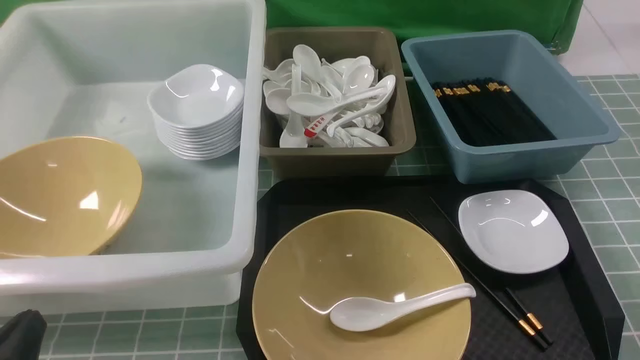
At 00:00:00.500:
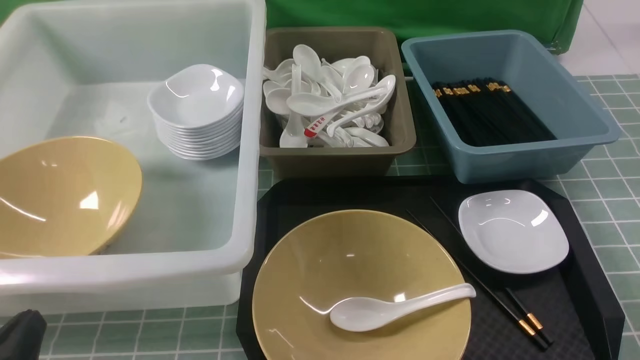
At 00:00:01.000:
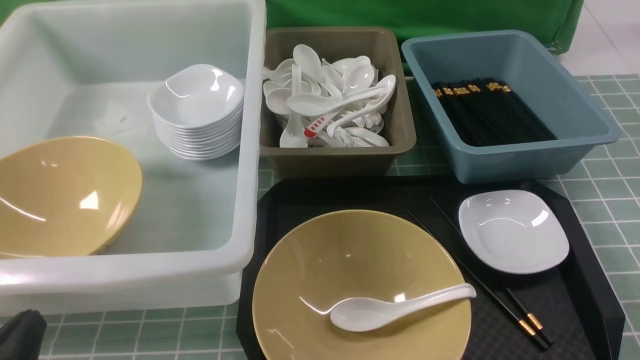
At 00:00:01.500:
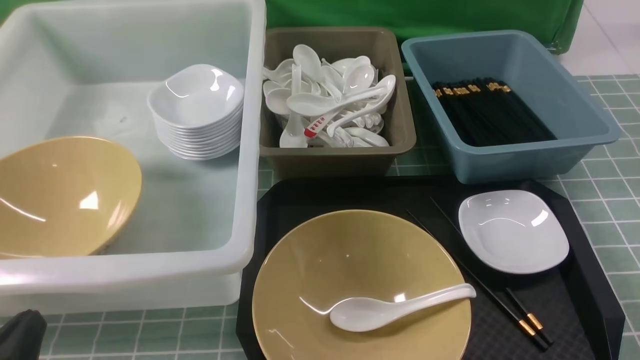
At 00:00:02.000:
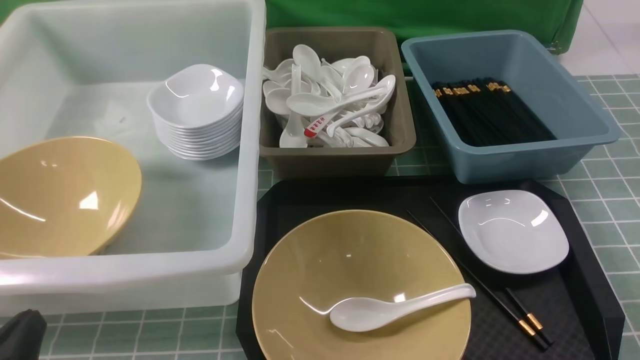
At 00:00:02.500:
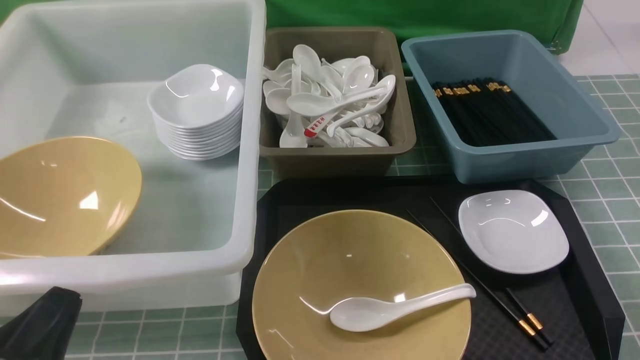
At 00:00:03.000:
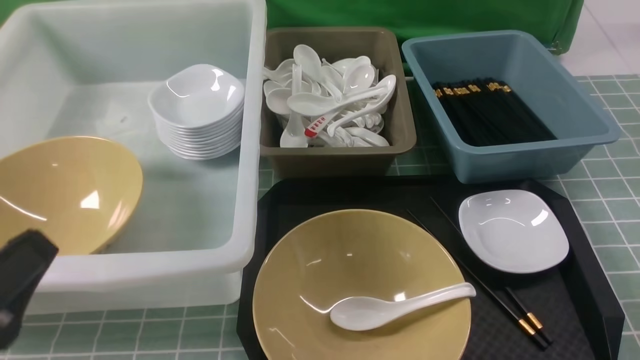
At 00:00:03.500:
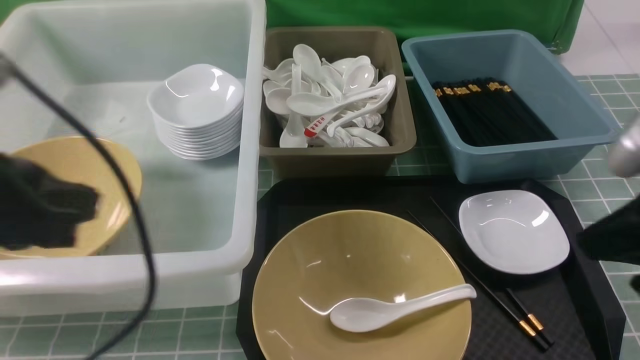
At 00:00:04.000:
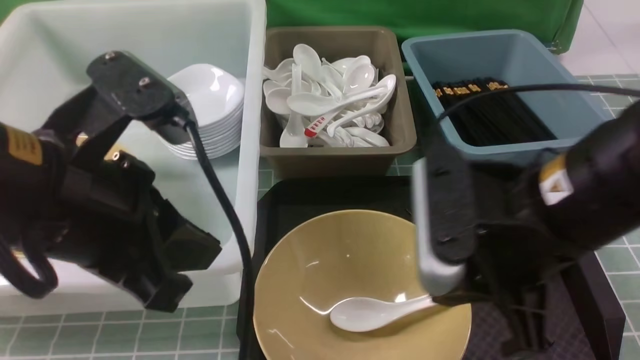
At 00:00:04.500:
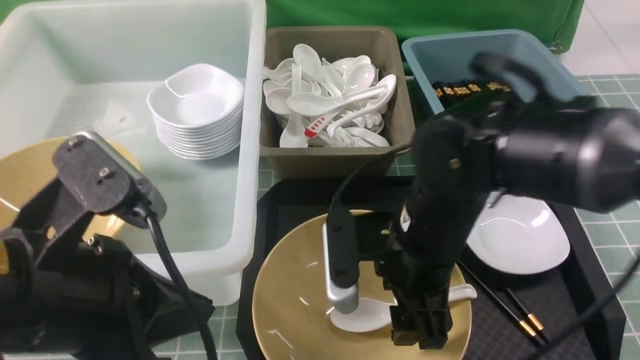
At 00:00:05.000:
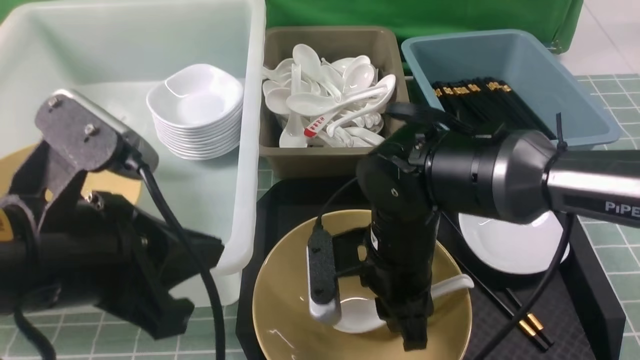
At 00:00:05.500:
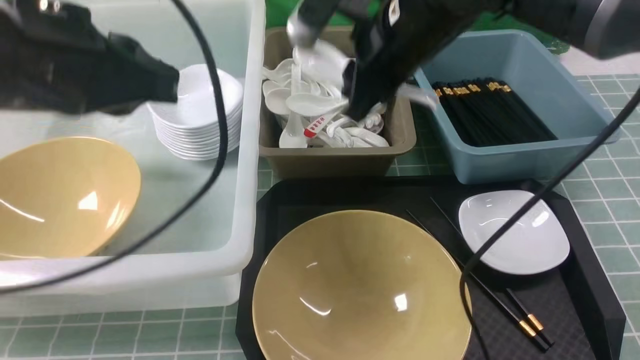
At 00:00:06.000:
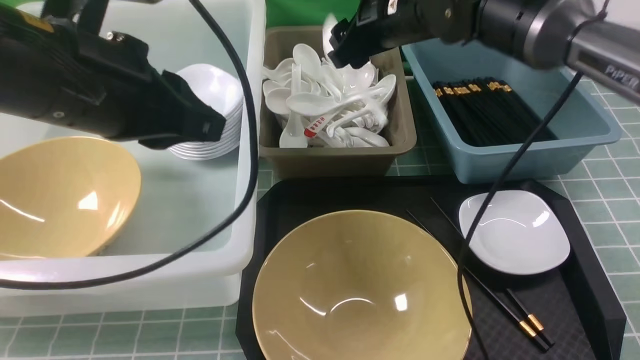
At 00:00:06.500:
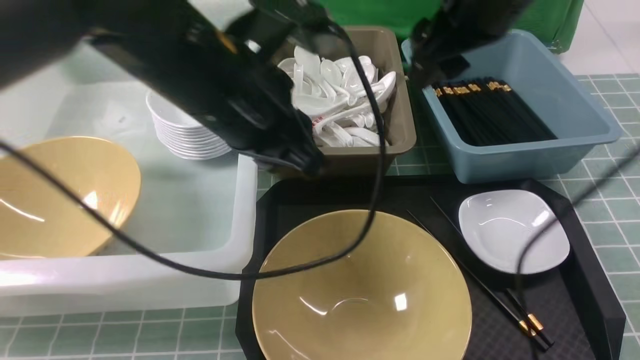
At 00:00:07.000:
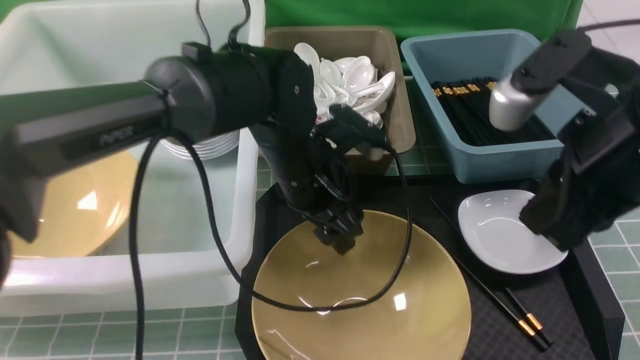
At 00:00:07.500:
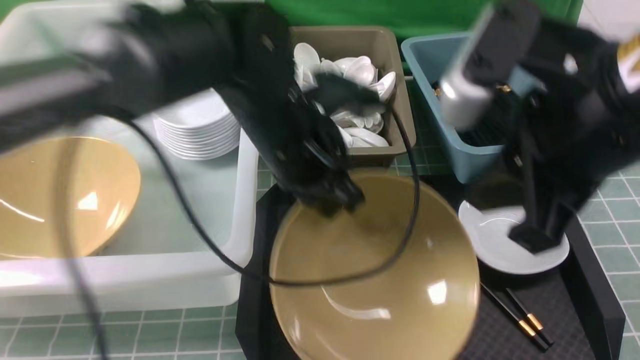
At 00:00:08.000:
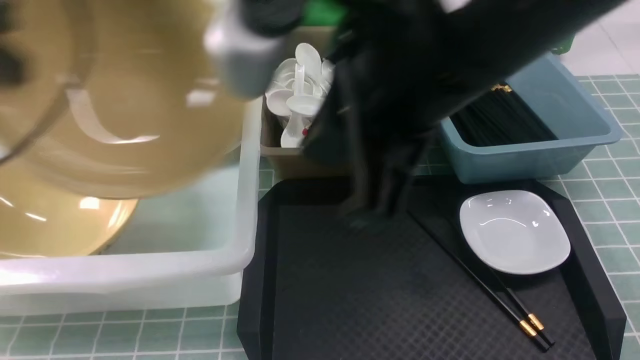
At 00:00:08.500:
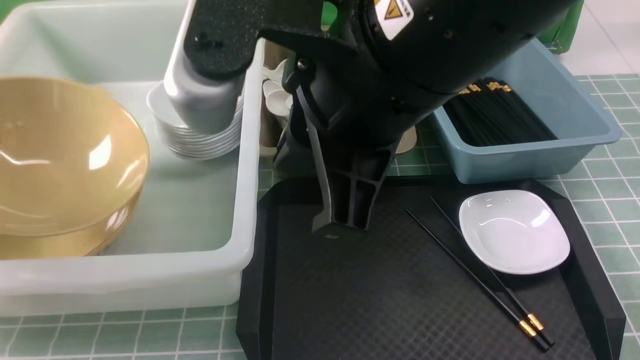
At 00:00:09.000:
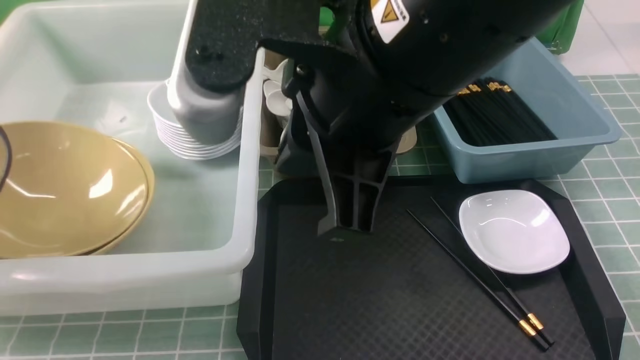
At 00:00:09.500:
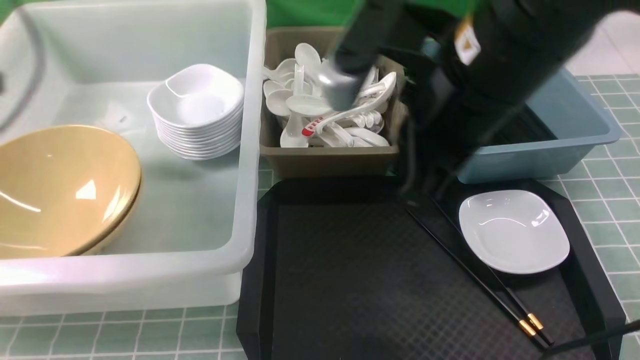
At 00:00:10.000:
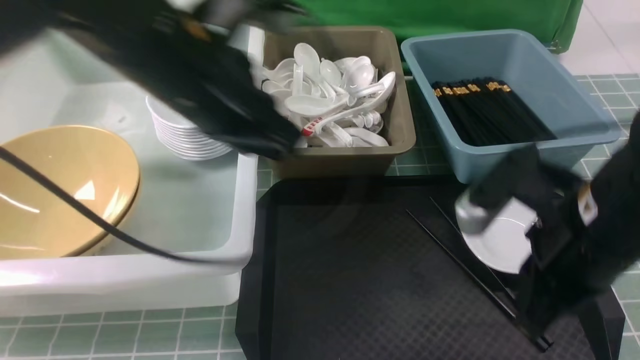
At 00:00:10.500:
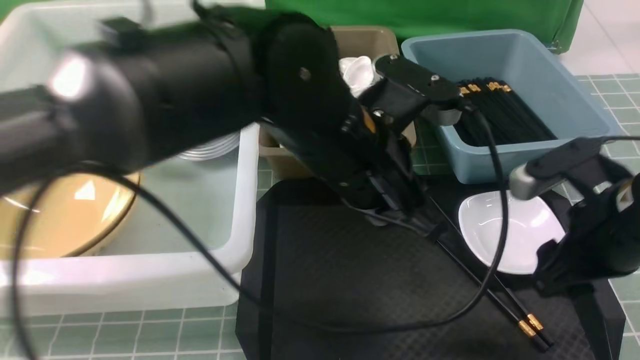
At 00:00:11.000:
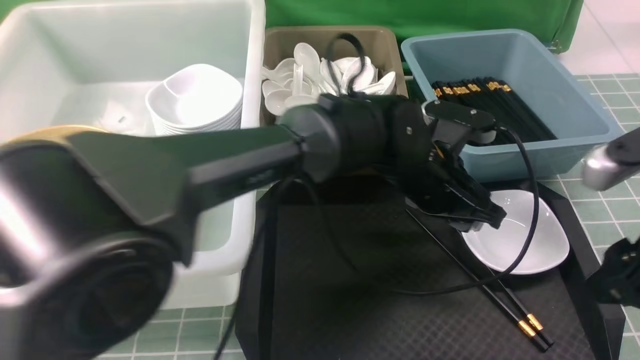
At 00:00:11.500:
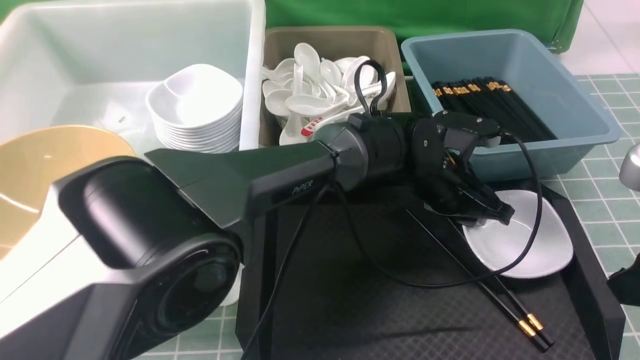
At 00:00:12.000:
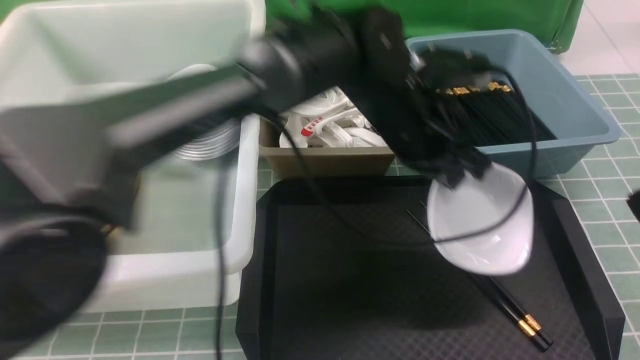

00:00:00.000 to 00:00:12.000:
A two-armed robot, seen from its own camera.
Task of the whole recording: on blue table put chopsticks spoon bowls plates into blue grey white boxes.
Step, 00:00:00.000 to 00:00:05.000: use the right arm to grab the soup spoon in the middle.
Step, 00:00:05.500 to 00:00:06.000: use the right arm to put the soup spoon into the small storage box in the middle.
Step, 00:00:06.500 to 00:00:07.500: use the left arm to grab the yellow noodle bowl on the left.
Step, 00:00:08.000 to 00:00:09.500: use the left arm to put the noodle bowl into the large storage box on the left.
Step, 00:00:10.000 to 00:00:12.000: use the left arm to grab the plate.
00:00:02.000 to 00:00:04.000: The right gripper moves to the left, forward and upward, roughly 25 cm, and closes, then reopens. The left gripper is displaced upward, forward and to the right by roughly 20 cm.
00:00:04.000 to 00:00:06.000: The left gripper travels forward by about 10 cm, while the right gripper is displaced forward by approximately 25 cm, and opens its fingers.
00:00:06.000 to 00:00:08.000: The right gripper moves backward and upward, roughly 25 cm, and closes its fingers. The left gripper moves to the left, roughly 15 cm, and opens, then closes once more.
00:00:08.000 to 00:00:10.000: The left gripper is displaced to the right by about 20 cm, and opens, then closes again; the right gripper is displaced downward and to the right by about 20 cm.
00:00:10.000 to 00:00:12.000: The right gripper goes roughly 10 cm upward and to the right, and opens, then closes once more. Meanwhile the left gripper is displaced to the right, forward and downward by about 15 cm, and opens and closes again.

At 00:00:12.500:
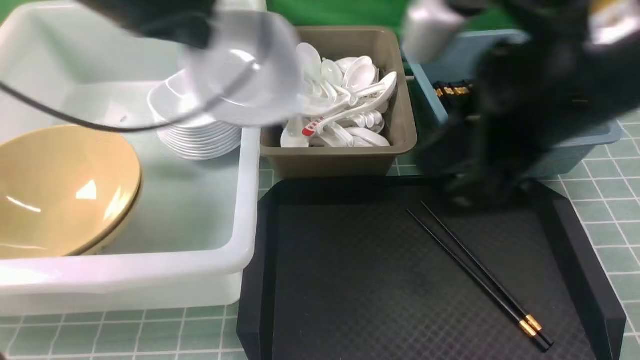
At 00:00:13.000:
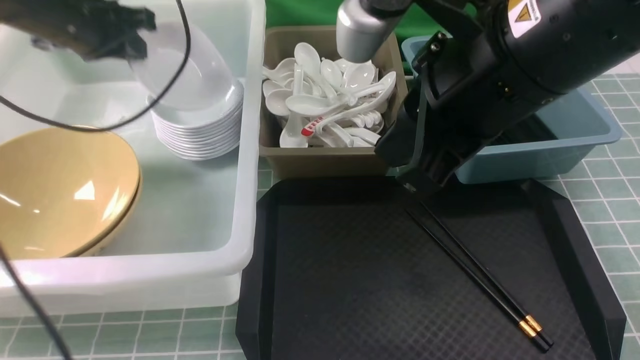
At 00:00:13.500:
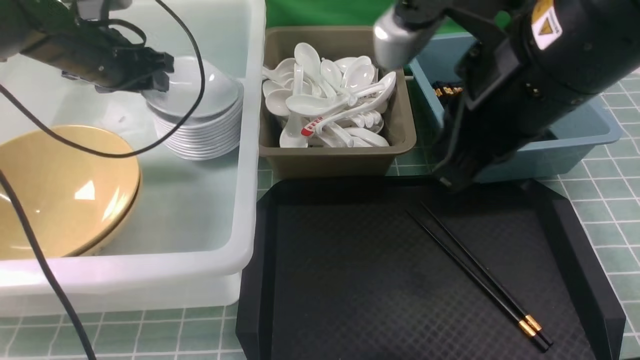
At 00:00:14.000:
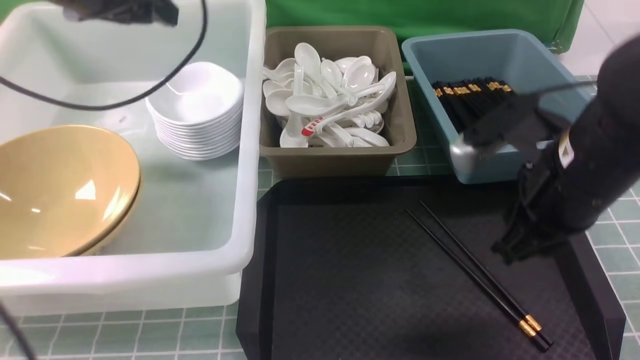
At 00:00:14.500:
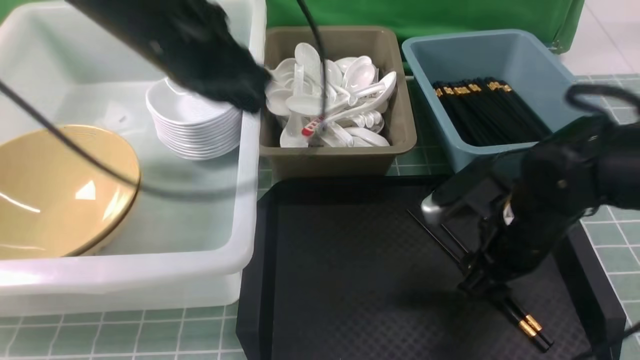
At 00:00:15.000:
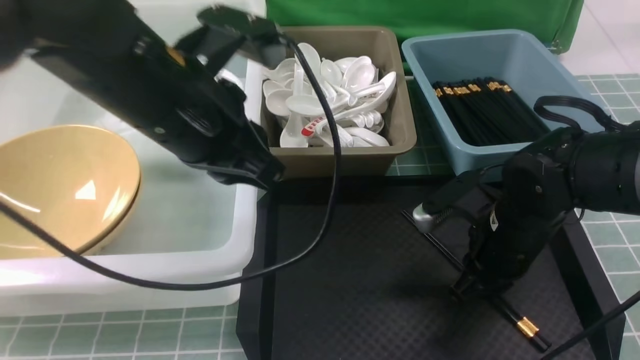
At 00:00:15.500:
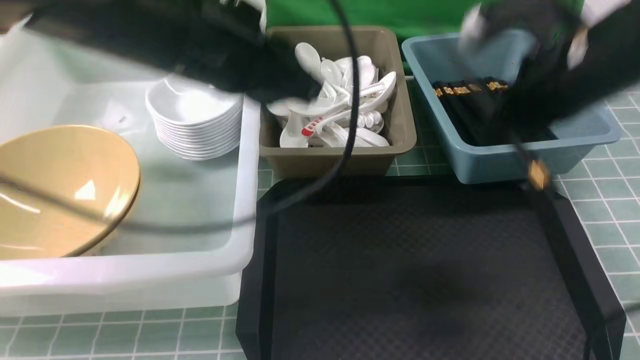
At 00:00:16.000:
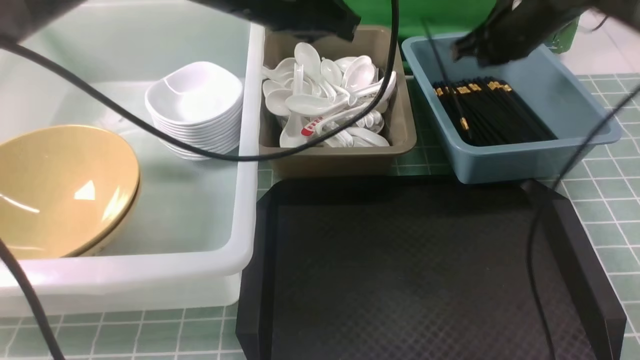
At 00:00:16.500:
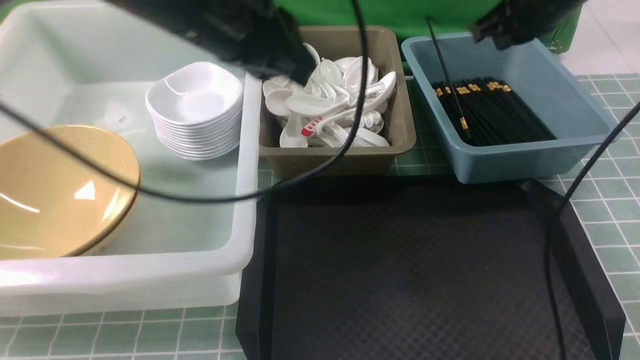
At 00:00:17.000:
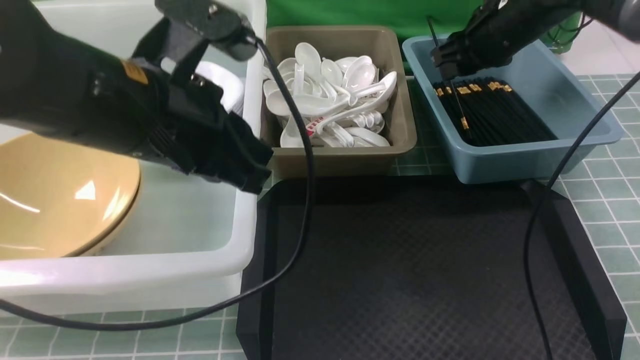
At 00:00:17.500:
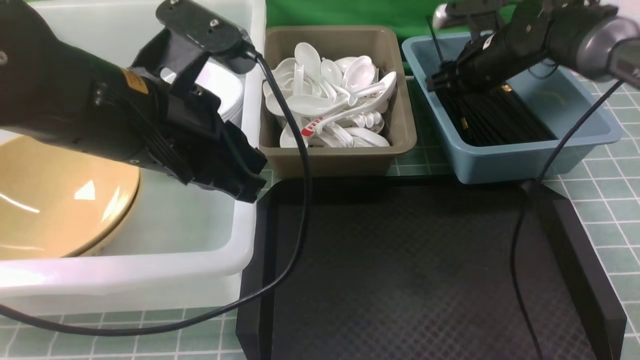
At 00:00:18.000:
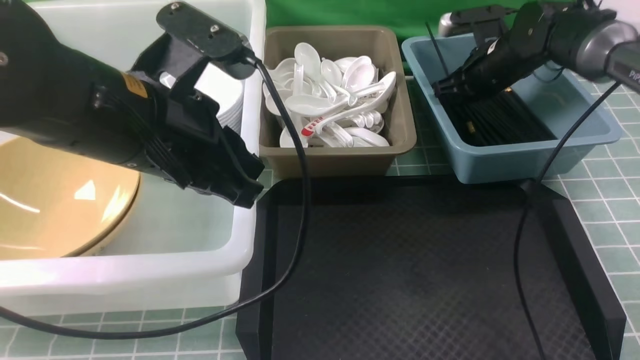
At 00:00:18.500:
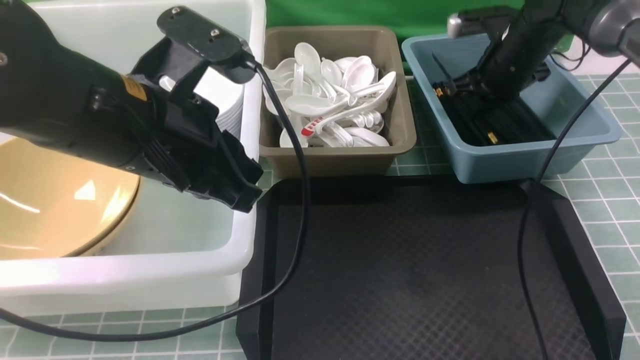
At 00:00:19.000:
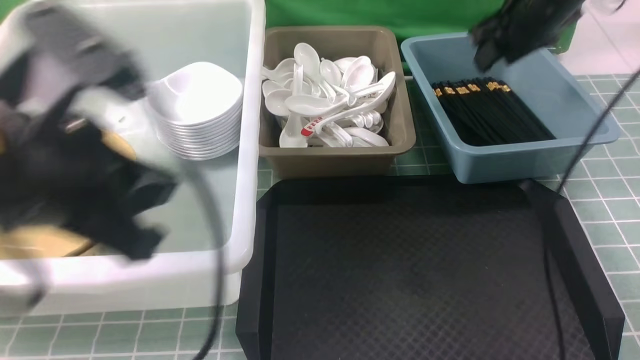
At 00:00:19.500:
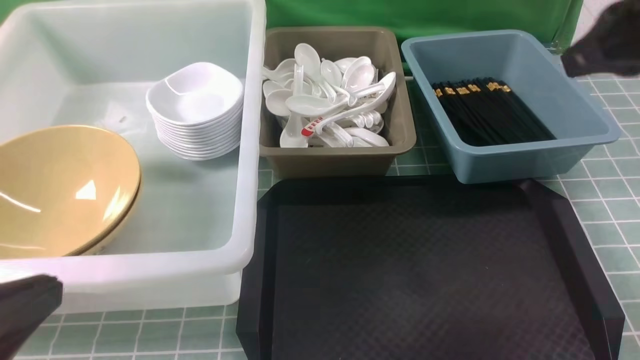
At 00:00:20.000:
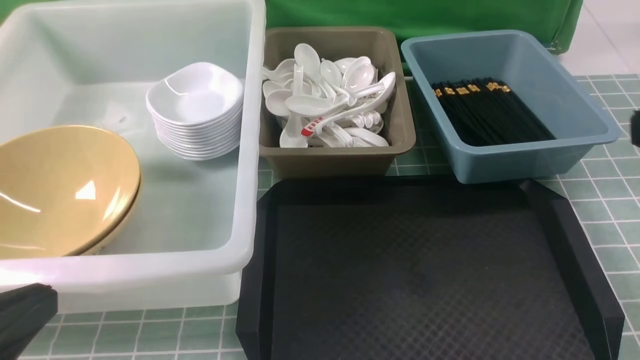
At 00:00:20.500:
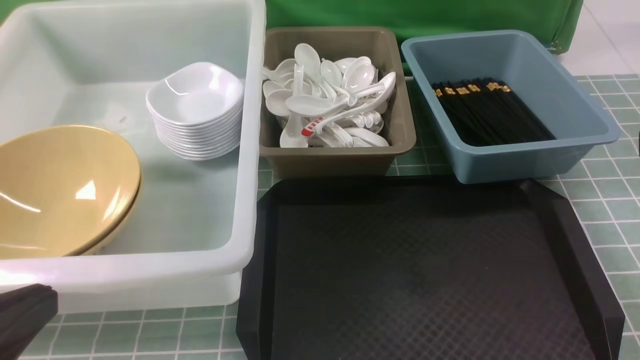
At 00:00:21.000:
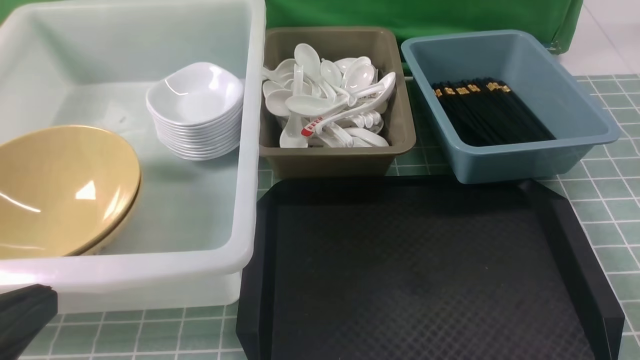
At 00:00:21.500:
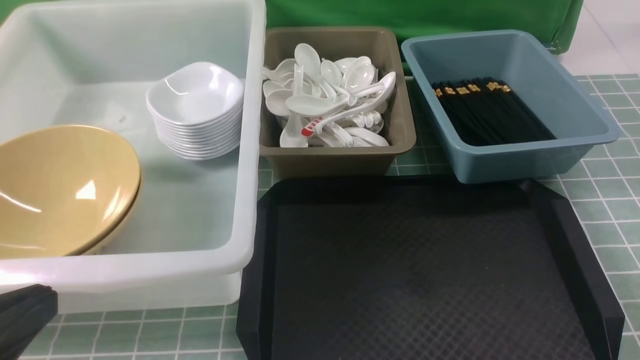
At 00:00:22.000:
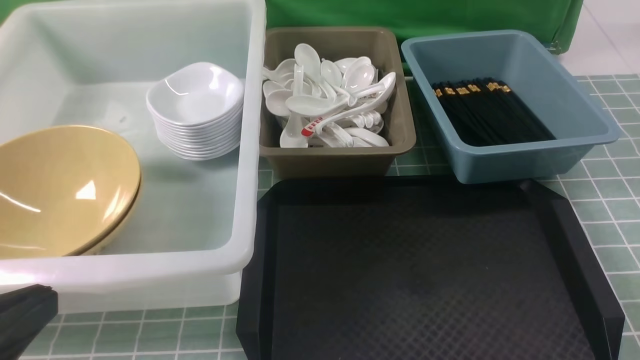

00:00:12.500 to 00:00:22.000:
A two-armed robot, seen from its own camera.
Task of the whole recording: on blue table put chopsticks spoon bowls plates into blue grey white boxes.
Step, 00:00:12.500 to 00:00:13.500: use the left arm to put the plate into the large storage box on the left.
Step, 00:00:14.000 to 00:00:15.000: use the right arm to grab the chopsticks.
Step, 00:00:15.500 to 00:00:16.000: use the right arm to put the chopsticks into the small storage box on the right.
00:00:12.500 to 00:00:14.500: The left gripper is displaced to the right by roughly 5 cm, and opens, then closes once more. Meanwhile the right gripper is displaced downward by about 20 cm, and opens its fingers.
00:00:14.500 to 00:00:16.500: The left gripper moves forward and backward over some 10 cm, changing direction 2 times. The right gripper shifts roughly 20 cm forward and upward, and closes.
00:00:16.500 to 00:00:18.000: The right gripper travels downward and forward by roughly 15 cm, and opens and closes again; the left gripper shifts approximately 5 cm backward.
00:00:18.000 to 00:00:20.000: The left gripper is displaced backward and to the left by some 20 cm, while the right gripper moves backward and upward, approximately 40 cm, and opens and closes again.
